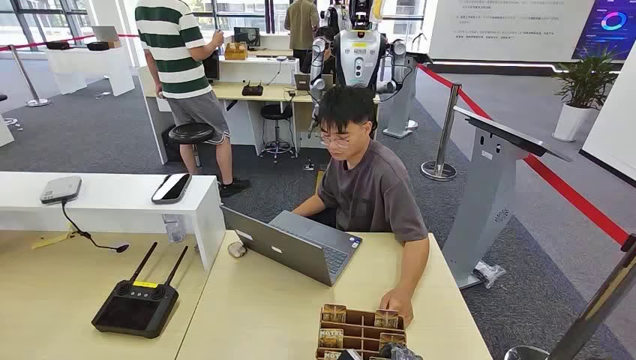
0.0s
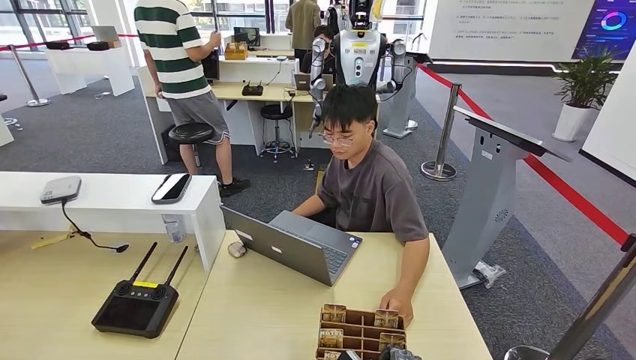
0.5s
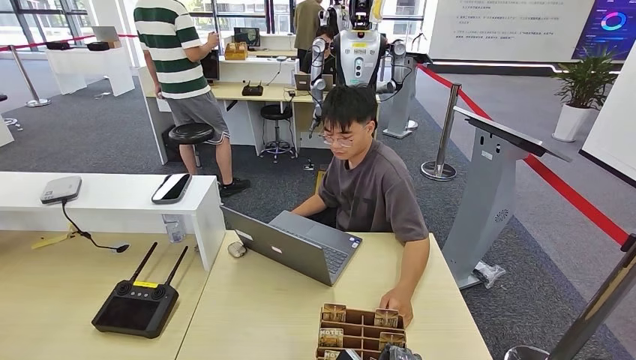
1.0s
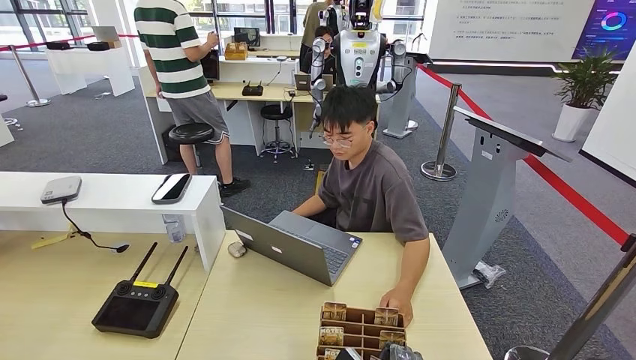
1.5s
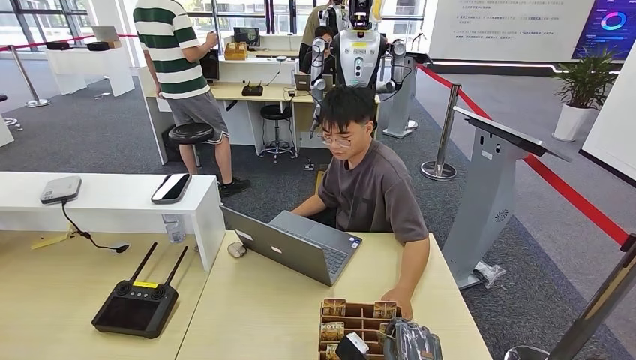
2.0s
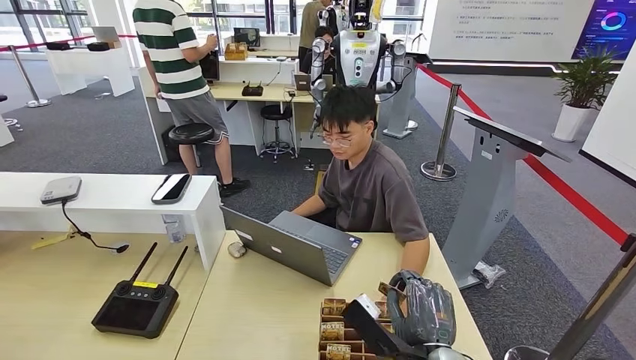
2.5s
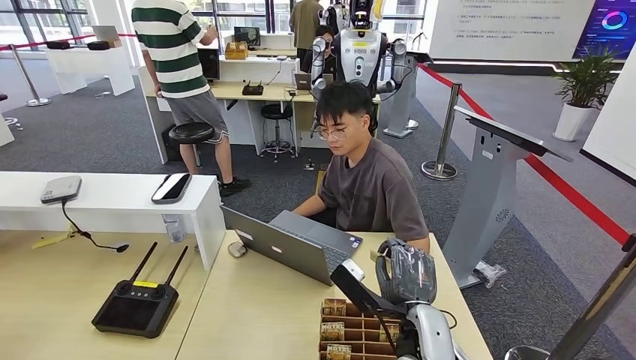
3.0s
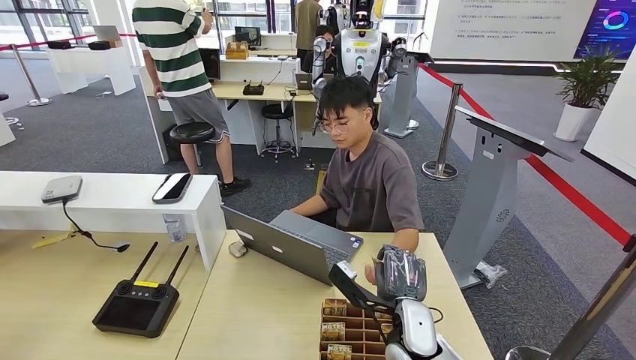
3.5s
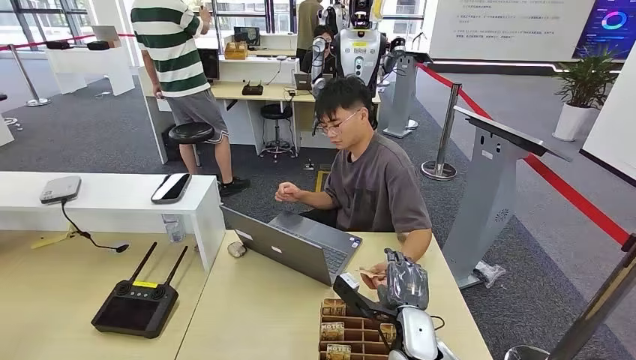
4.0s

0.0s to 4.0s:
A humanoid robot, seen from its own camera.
Step, 3.0s to 3.5s: Hand the key card to the target.
2.0s to 4.0s: The right hand is displaced forward by approximately 10 cm.

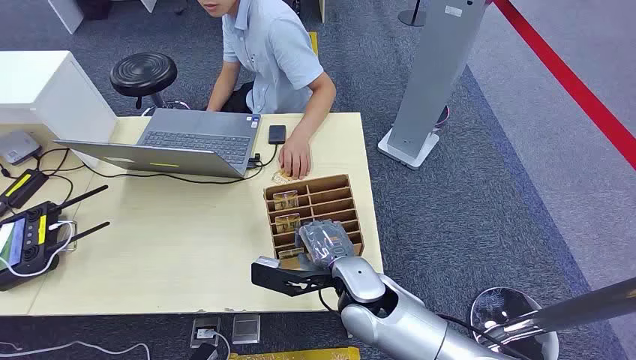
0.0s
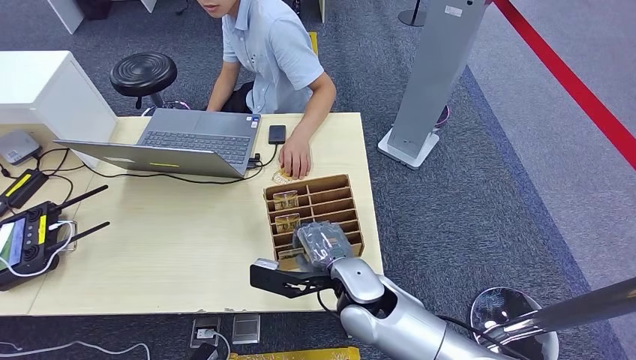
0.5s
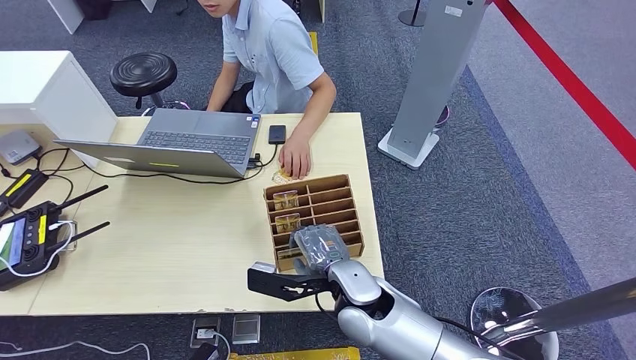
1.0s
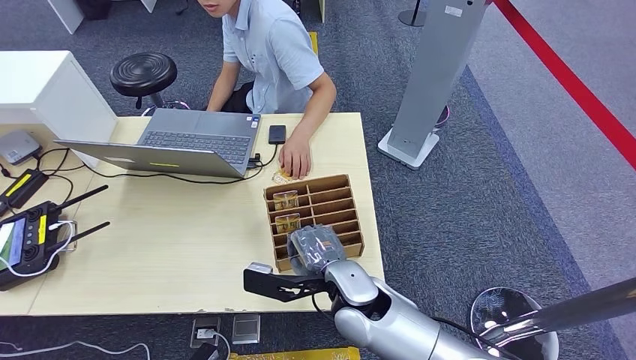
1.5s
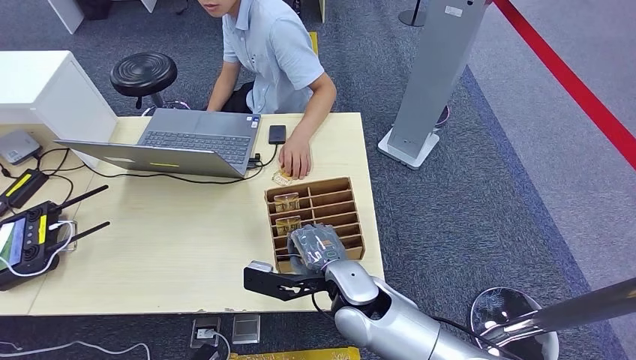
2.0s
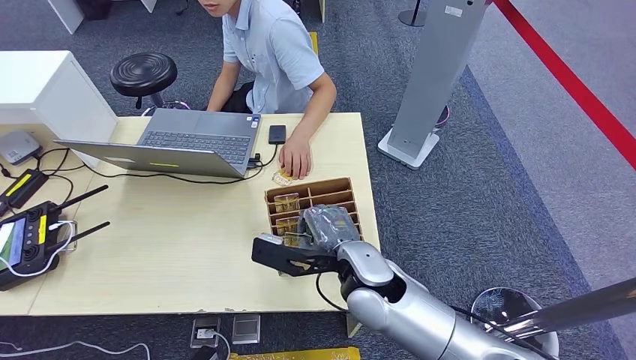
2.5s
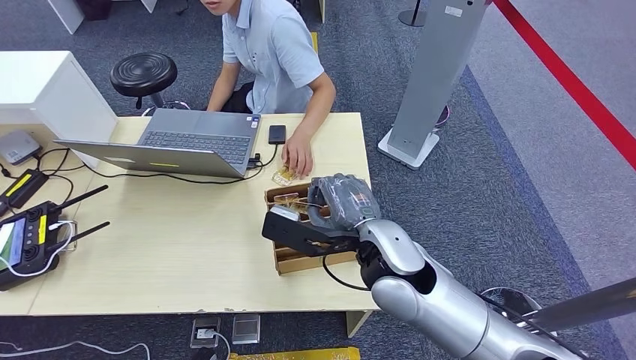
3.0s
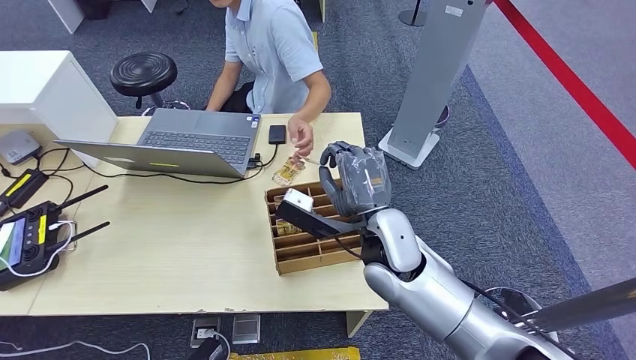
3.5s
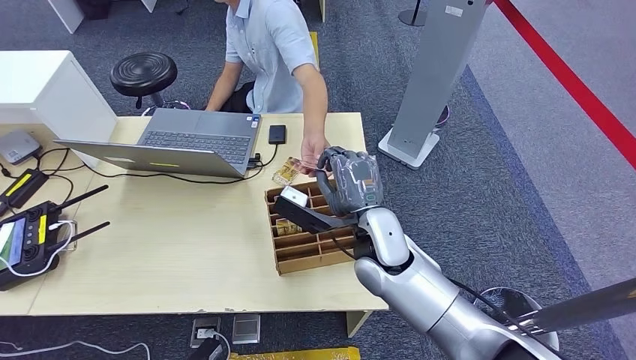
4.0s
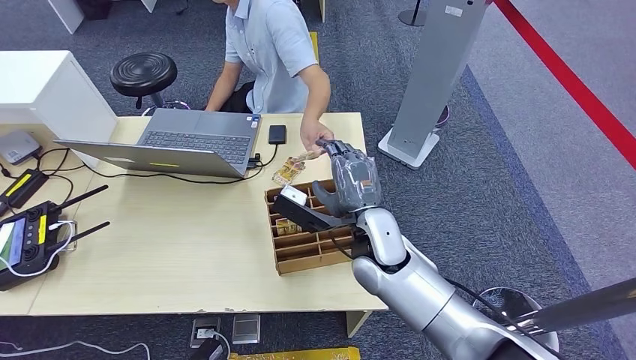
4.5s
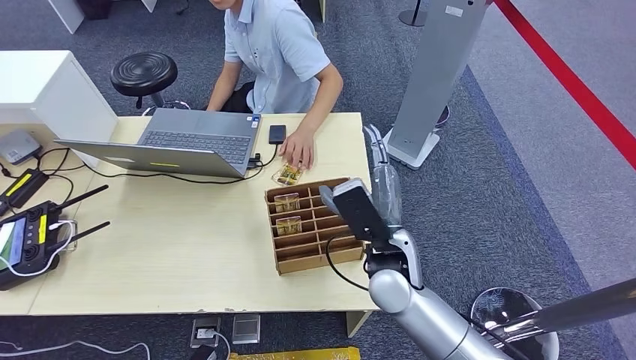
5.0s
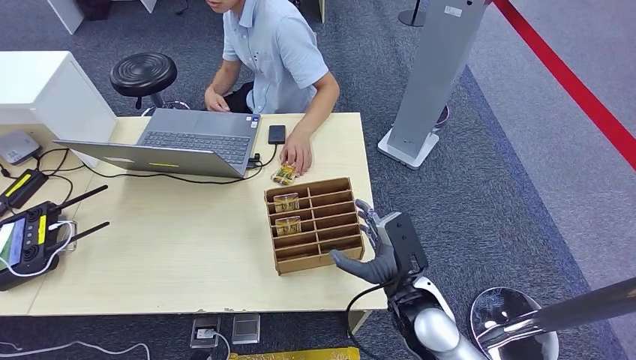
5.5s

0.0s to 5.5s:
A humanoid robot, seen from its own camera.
Step, 0.0s to 3.0s: Pick up the key card from the card box.
Step, 3.5s to 5.5s: Hand the key card to the target.
2.0s to 3.5s: The right hand heads upward and forward, covering about 10 cm.
3.5s to 5.5s: The right hand goes some 15 cm downward, backward and to the right.
